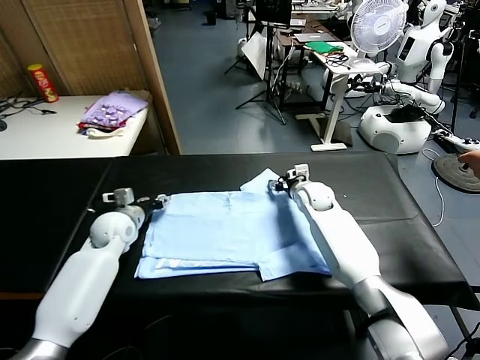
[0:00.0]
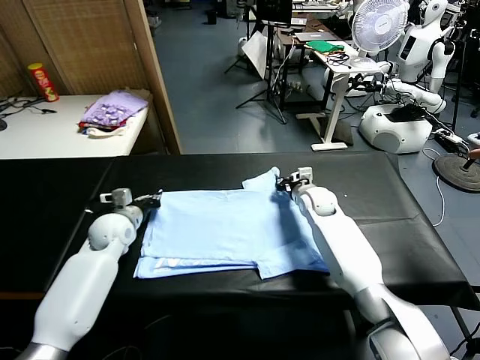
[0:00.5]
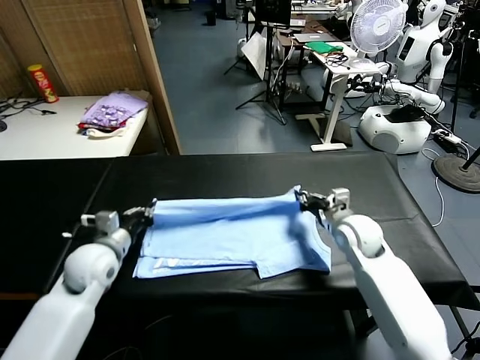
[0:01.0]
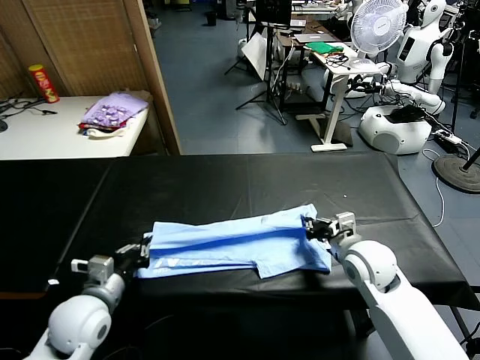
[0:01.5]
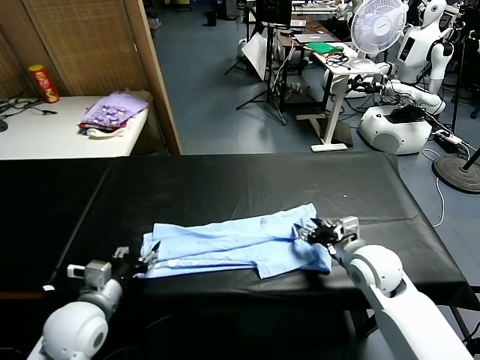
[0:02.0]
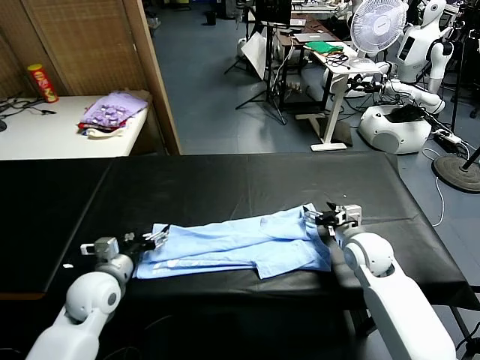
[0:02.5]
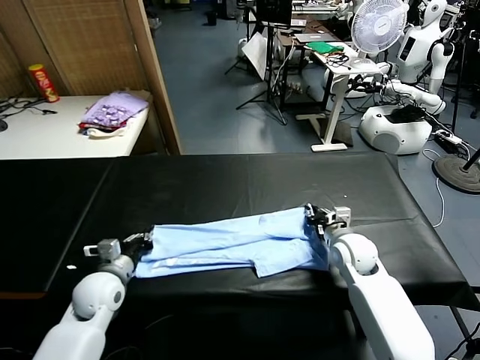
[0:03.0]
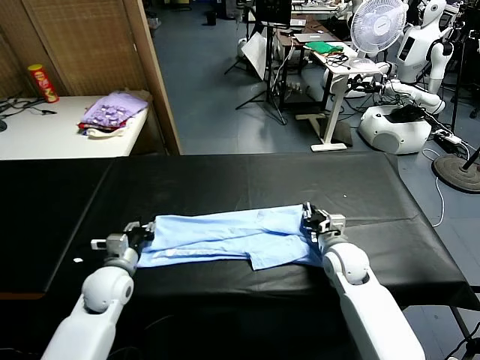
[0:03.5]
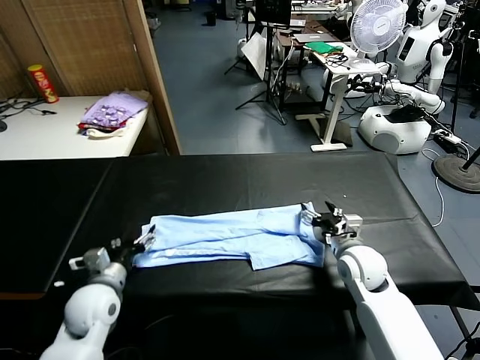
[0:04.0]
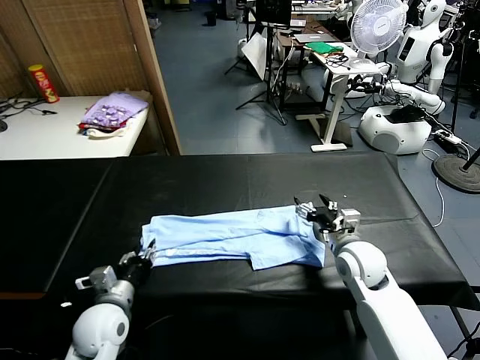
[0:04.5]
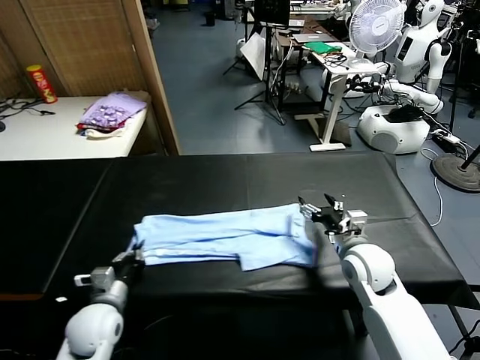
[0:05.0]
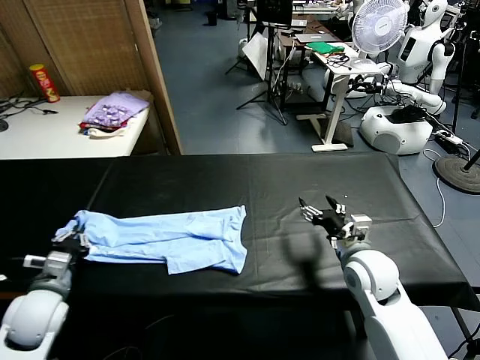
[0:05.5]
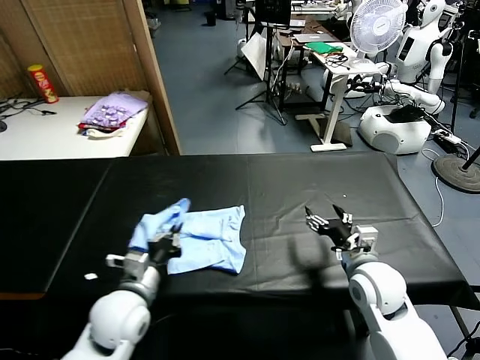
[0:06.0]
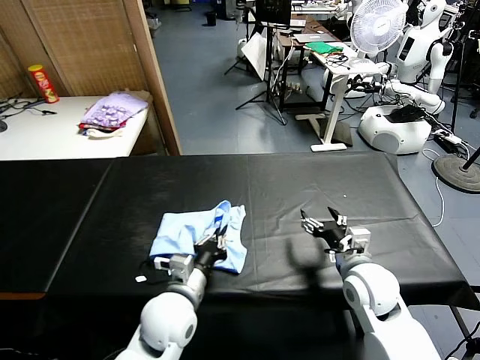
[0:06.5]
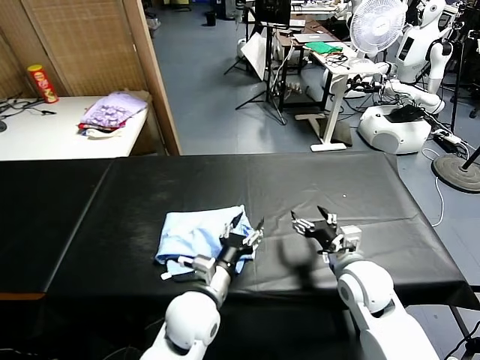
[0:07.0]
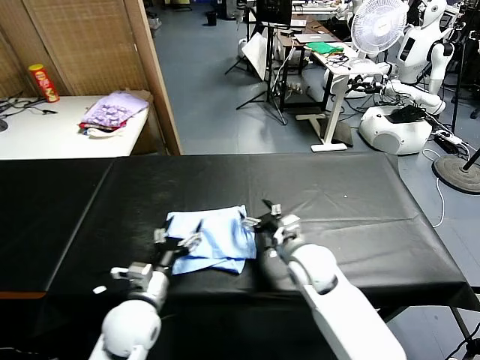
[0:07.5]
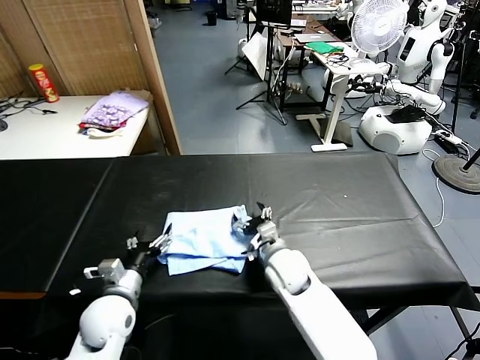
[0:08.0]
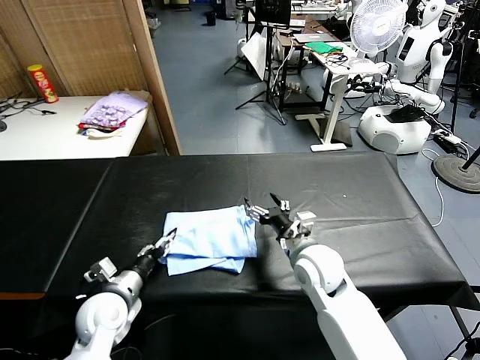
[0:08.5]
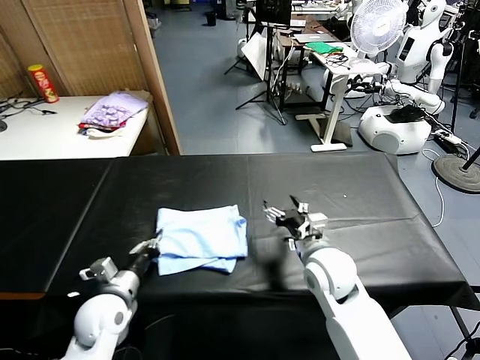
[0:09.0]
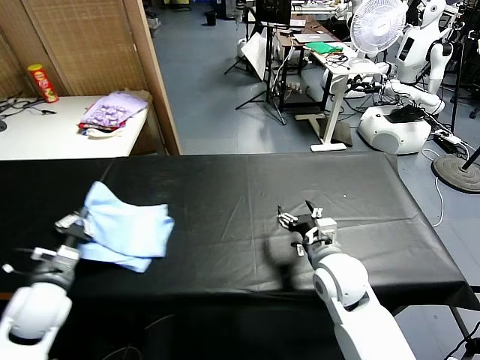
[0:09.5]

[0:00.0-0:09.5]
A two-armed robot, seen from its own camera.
Task of the whole recording: fold and organize the clothes.
Step, 0:00.5 to 0:01.5: use both grippers to drag the upper edge of the fabric backward and fold it over the lower edge.
Step, 0:02.0 to 0:04.5: use the left gripper to clamp the left edge of the fabric.
Step, 0:05.0 to 0:06.5: use the left gripper to drag the left edge of the fabric to the left and folds it over the right edge.
0:00.0 to 0:02.0: The left gripper moves backward, approximately 25 cm, and closes and opens again, while the right gripper moves backward and to the right, some 25 cm, and opens up.
0:02.0 to 0:04.0: The right gripper closes, then reopens. Meanwhile the left gripper shifts approximately 5 cm downward, and closes, then reopens.
0:04.0 to 0:05.5: The left gripper heads to the left, covering about 10 cm, and closes up, while the right gripper moves approximately 5 cm.
0:05.5 to 0:07.5: The left gripper shifts about 20 cm to the right, and opens up, while the right gripper moves to the left, approximately 15 cm.
0:07.5 to 0:09.5: The right gripper heads to the right, covering some 5 cm; the left gripper is displaced to the left by about 15 cm, and closes up.

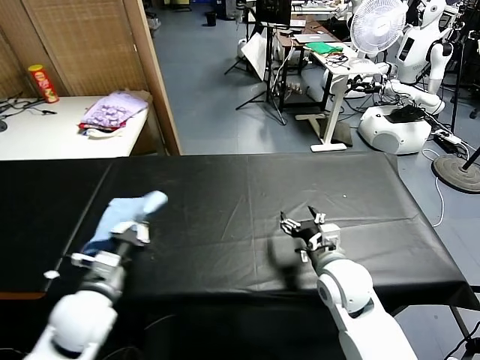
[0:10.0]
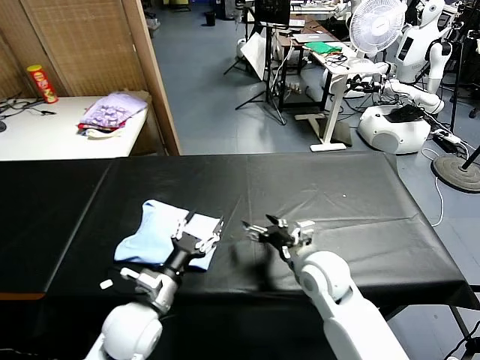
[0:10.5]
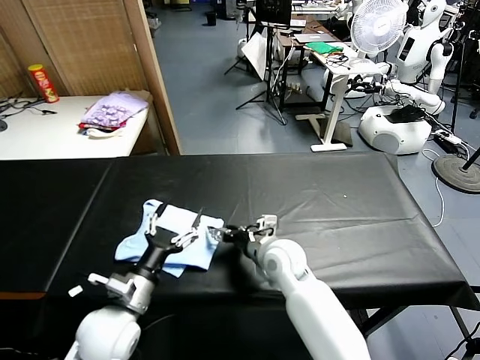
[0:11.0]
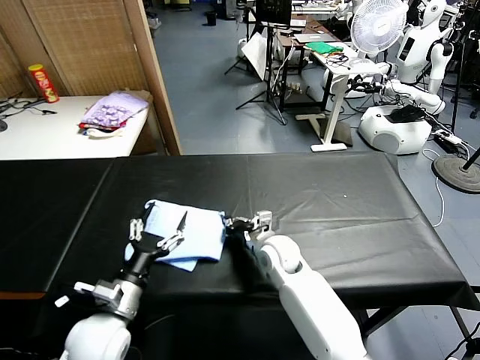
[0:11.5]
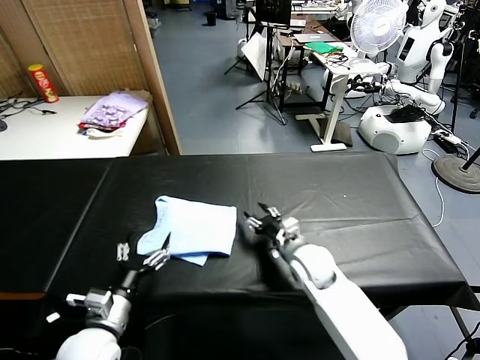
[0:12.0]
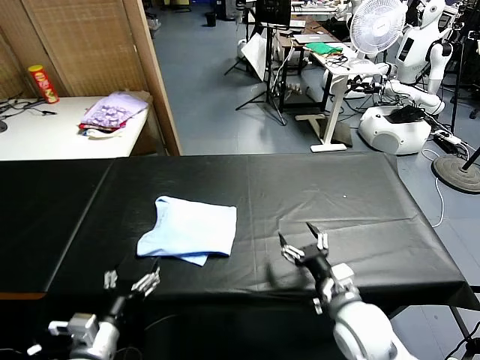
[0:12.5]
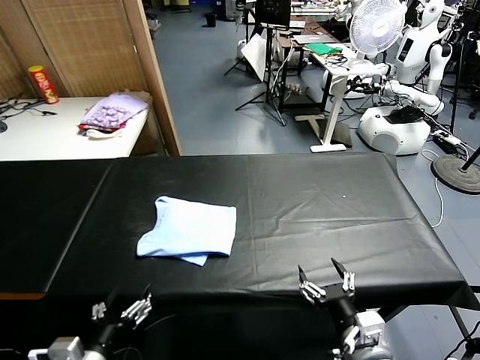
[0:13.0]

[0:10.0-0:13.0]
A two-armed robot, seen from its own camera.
Task of the whole recording: fold and organize the clothes.
Step, 0:10.5 to 0:11.5: Drag the clothes to the center of the table.
0:10.0 to 0:11.5: The right gripper goes approximately 15 cm to the left, forward and downward, and closes; the left gripper opens its fingers.
0:11.5 to 0:13.0: The right gripper is displaced backward and to the right by some 30 cm, and opens its fingers. Meanwhile the left gripper travels backward by about 10 cm.
